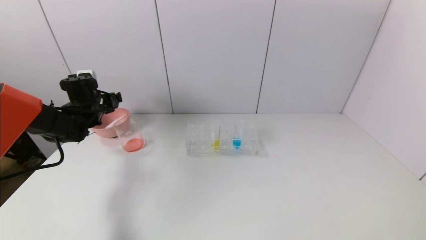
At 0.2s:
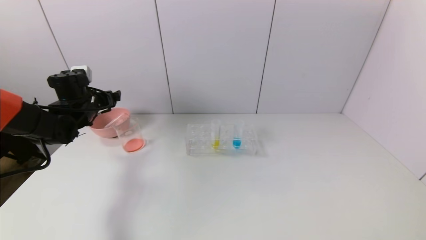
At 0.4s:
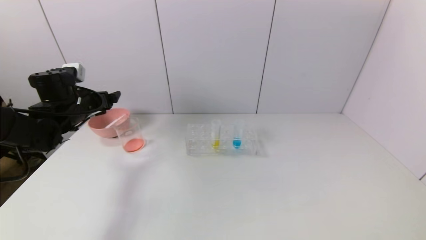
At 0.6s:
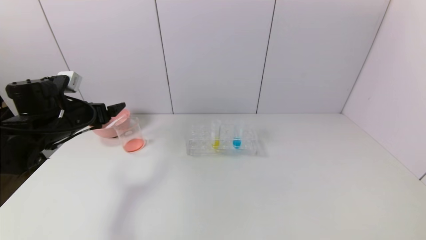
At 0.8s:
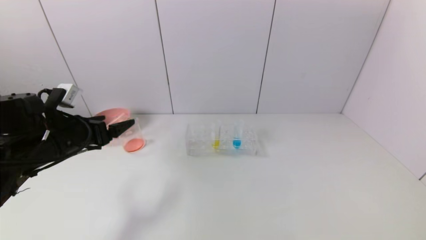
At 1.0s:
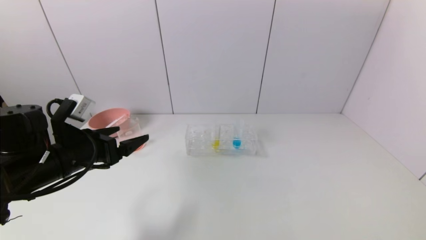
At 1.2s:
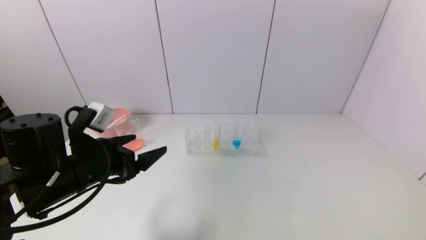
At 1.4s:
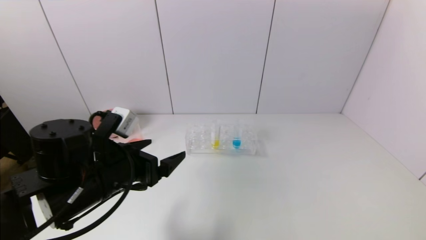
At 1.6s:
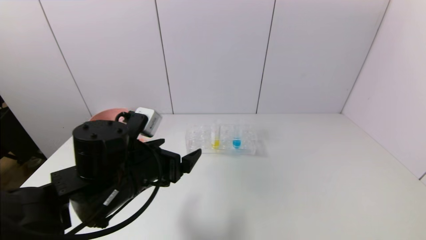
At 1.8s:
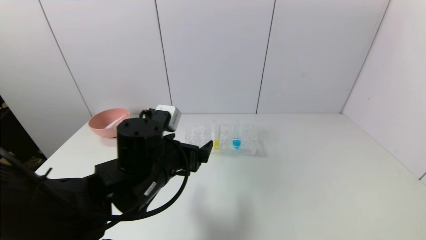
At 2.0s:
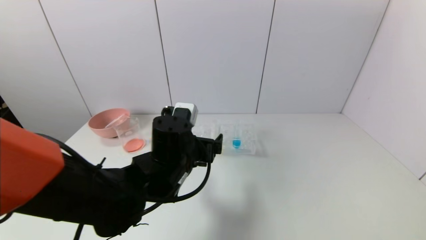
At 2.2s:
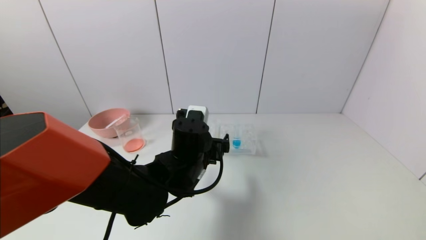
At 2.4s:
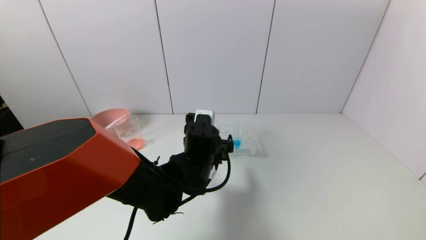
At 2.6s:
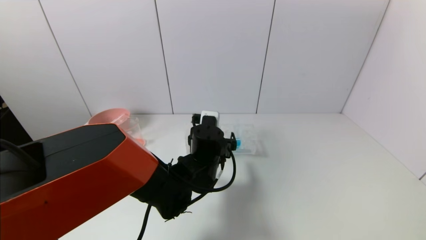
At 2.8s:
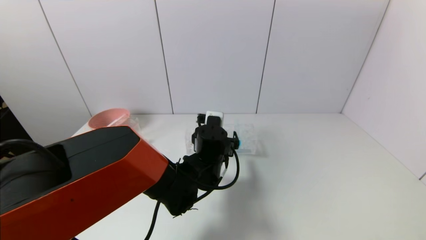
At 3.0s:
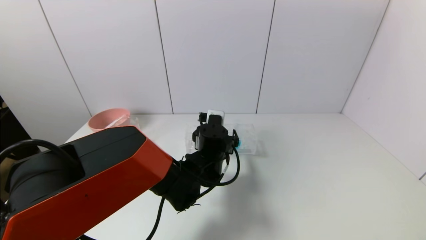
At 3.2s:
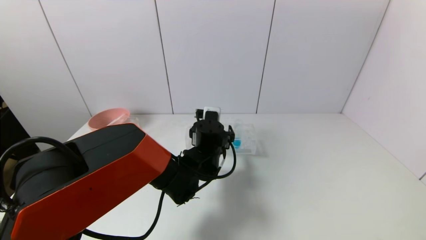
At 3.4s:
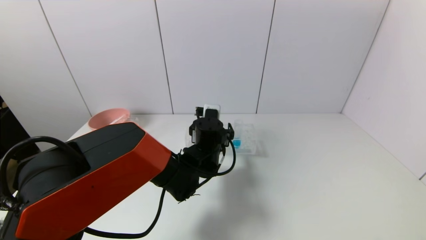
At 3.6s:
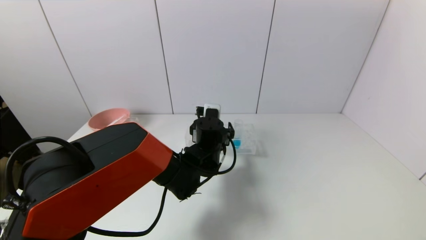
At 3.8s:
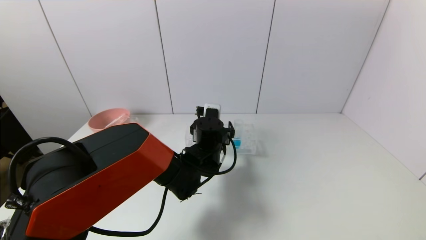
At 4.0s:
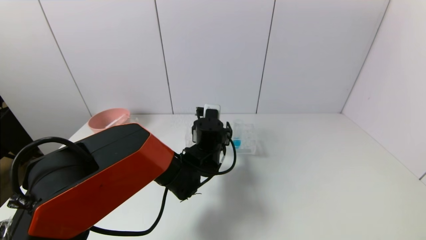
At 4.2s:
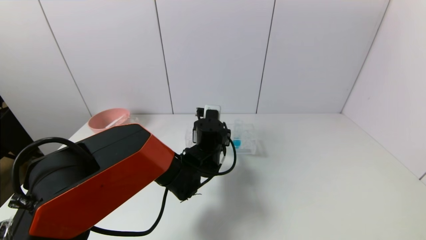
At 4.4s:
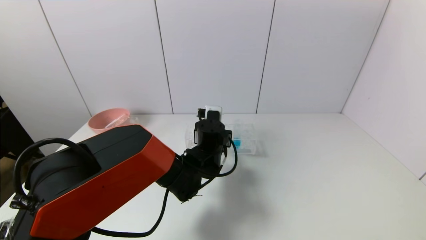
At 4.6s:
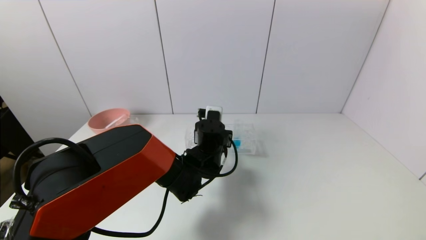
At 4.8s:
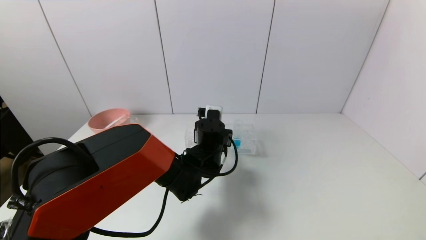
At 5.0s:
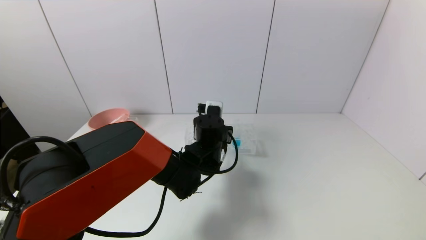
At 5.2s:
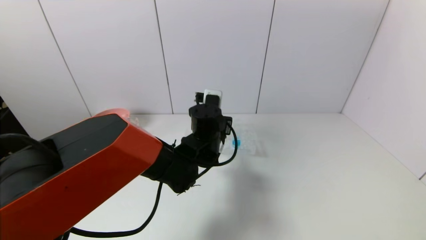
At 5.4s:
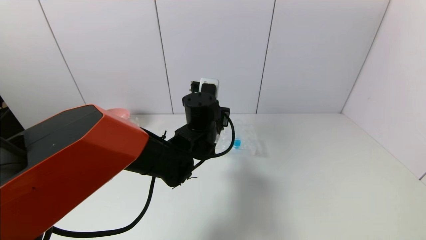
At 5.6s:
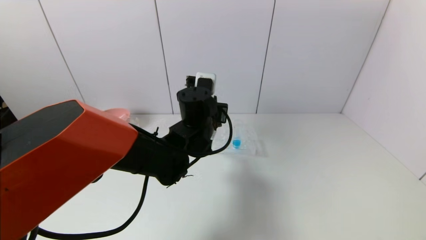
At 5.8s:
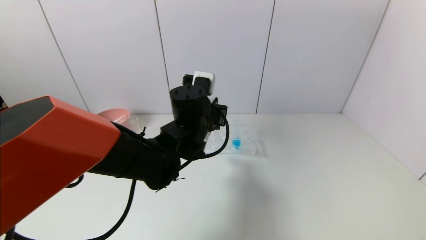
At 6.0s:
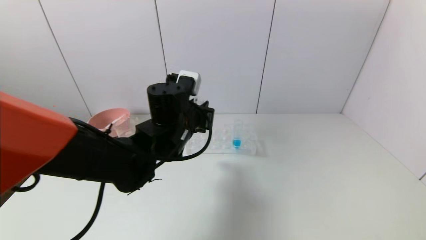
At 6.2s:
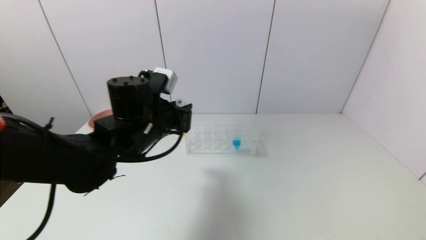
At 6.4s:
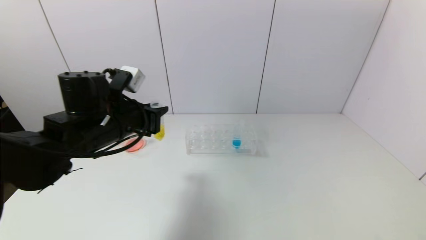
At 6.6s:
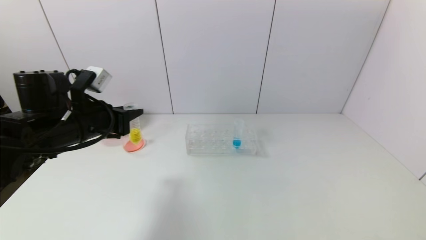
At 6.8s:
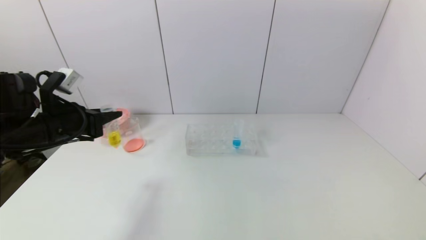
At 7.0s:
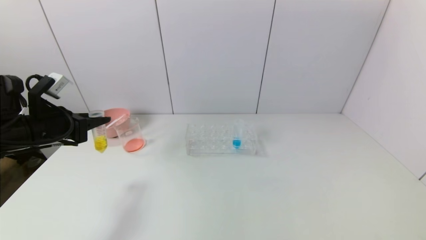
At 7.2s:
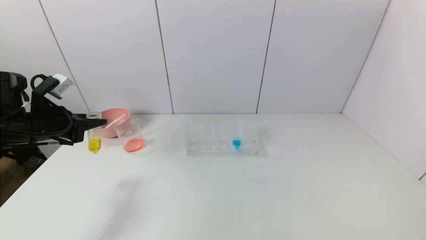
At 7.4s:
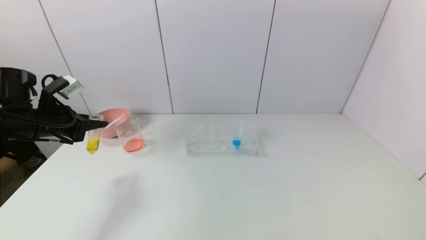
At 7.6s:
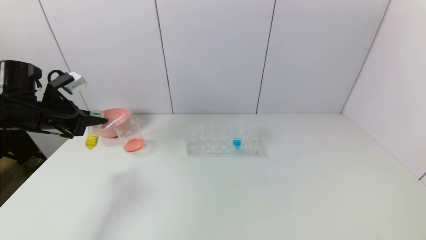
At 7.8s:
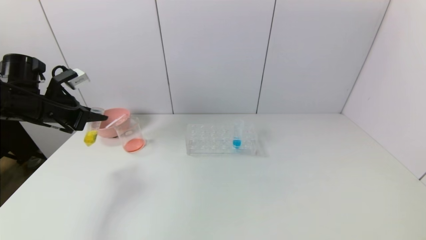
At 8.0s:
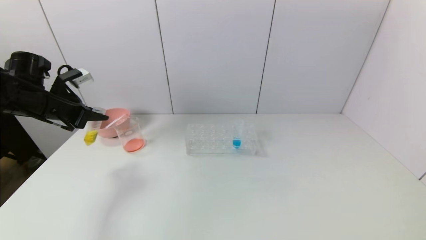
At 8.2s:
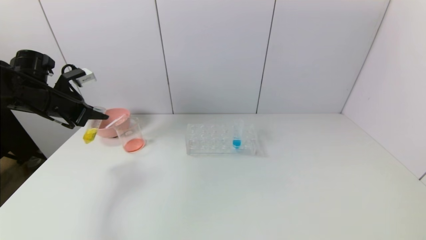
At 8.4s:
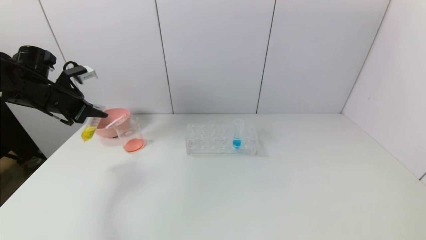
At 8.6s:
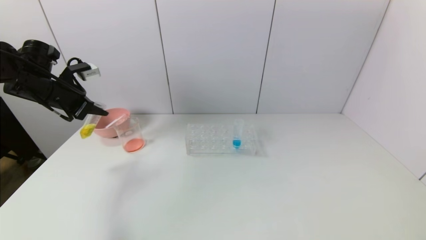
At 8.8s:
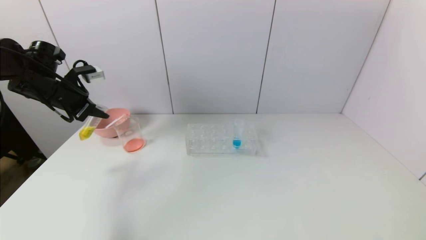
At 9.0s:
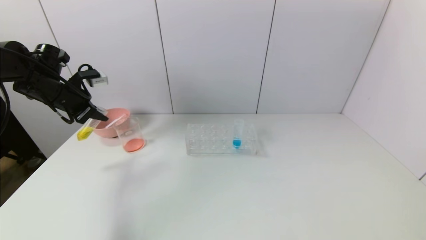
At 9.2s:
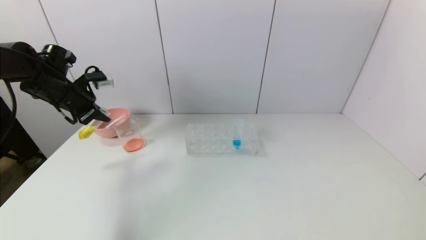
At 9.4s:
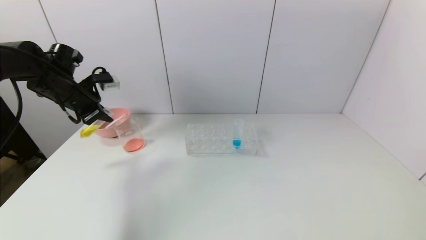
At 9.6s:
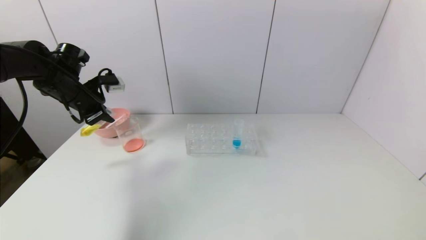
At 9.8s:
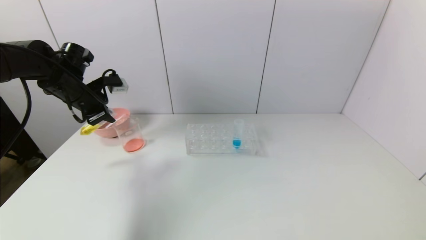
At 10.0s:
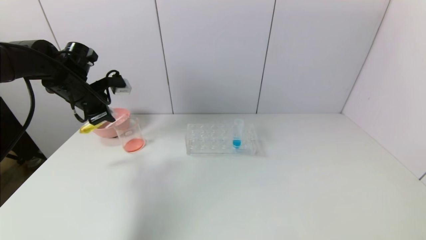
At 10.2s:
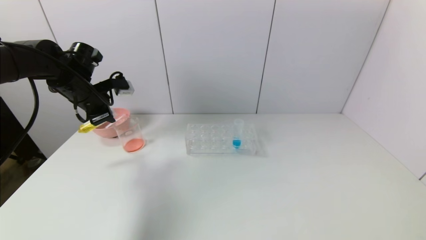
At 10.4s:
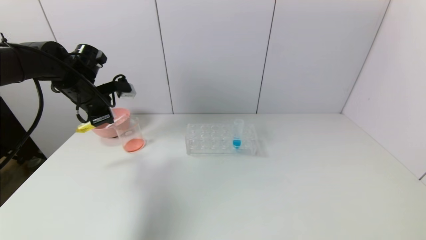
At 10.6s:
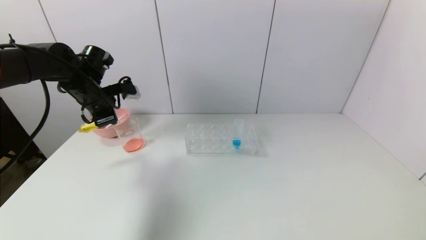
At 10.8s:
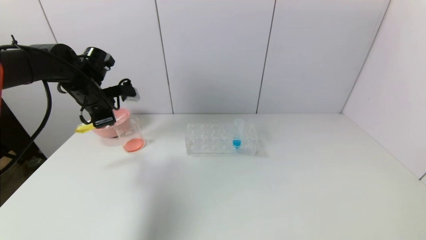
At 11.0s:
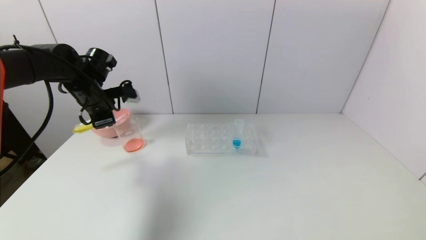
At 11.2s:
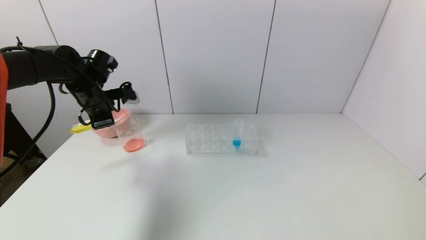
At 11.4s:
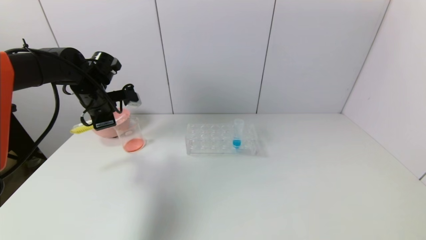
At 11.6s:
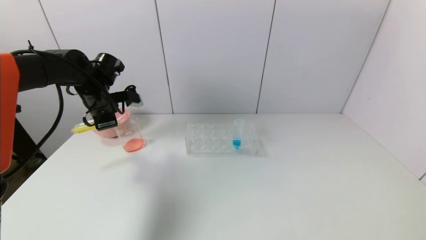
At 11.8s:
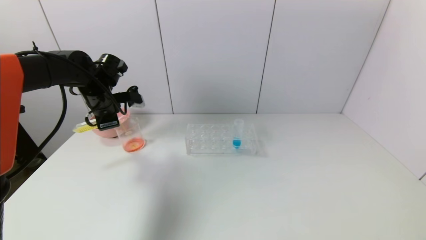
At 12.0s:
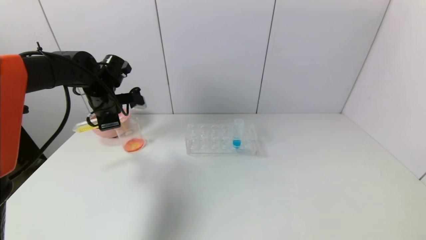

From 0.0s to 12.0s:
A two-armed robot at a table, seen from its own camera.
Task of the whole recording: pick up the test tube with yellow pigment and the test tube with red pigment by grippers and pour them into the beaker.
Step, from 0.0s to 4.4s: Grasp the yellow reagent with the left gripper.
From 0.0s to 1.6s: The left gripper travels backward and to the right by some 30 cm.
From 1.6s to 3.0s: The left gripper shifts about 20 cm to the right, forward and downward.
From 3.0s to 4.4s: The left gripper closes.
From 4.4s to 6.0s: The left gripper is displaced upward, to the left and backward by some 15 cm.
From 6.0s to 7.6s: The left gripper goes roughly 30 cm to the left.
From 7.6s to 9.0s: The left gripper heads forward, covering approximately 5 cm.
From 9.0s to 10.4s: The left gripper moves to the right, some 5 cm.
From 10.4s to 12.0s: The grippers stay close to where they were, moving slightly.

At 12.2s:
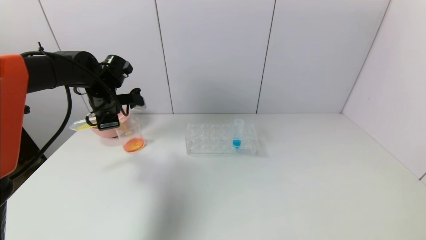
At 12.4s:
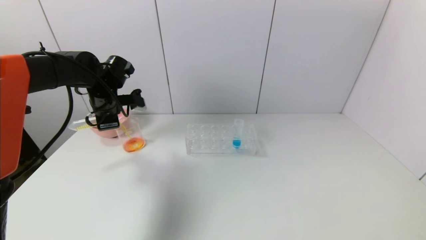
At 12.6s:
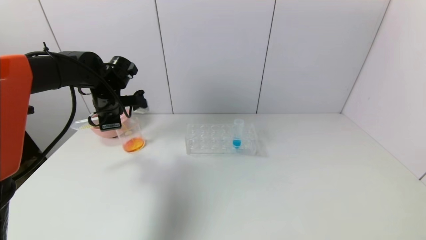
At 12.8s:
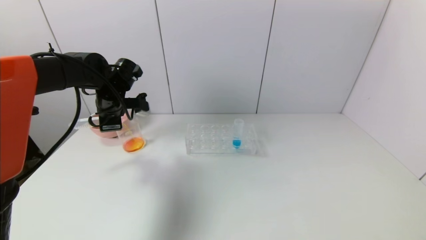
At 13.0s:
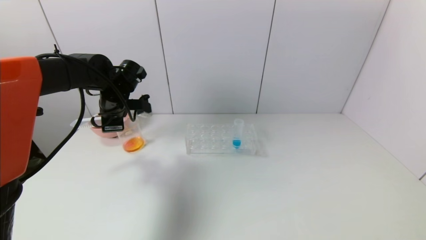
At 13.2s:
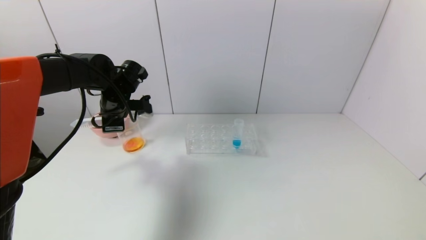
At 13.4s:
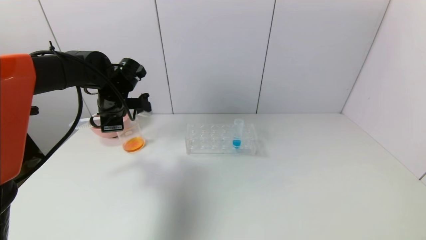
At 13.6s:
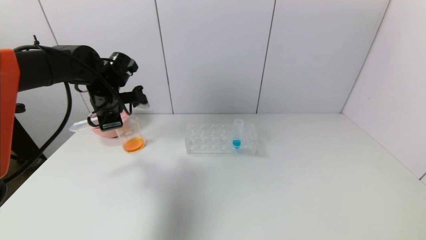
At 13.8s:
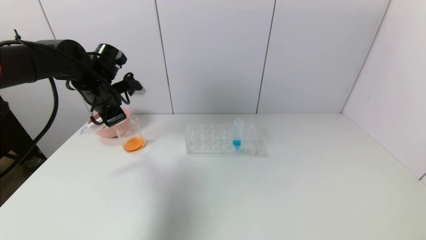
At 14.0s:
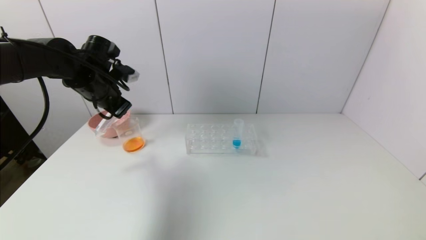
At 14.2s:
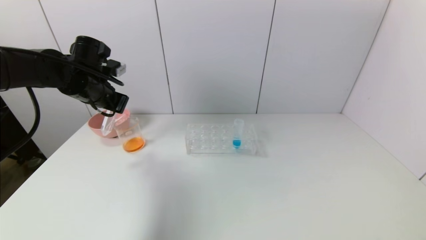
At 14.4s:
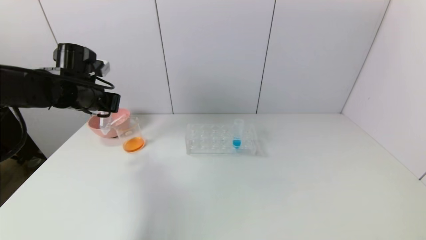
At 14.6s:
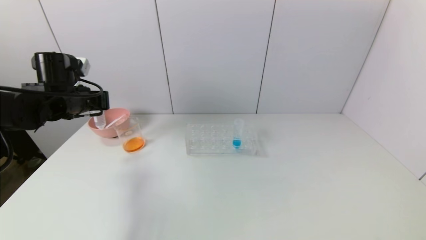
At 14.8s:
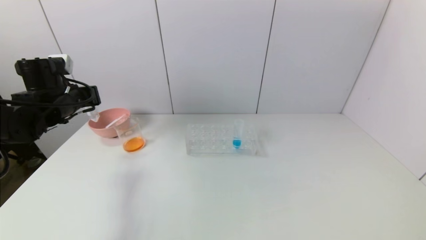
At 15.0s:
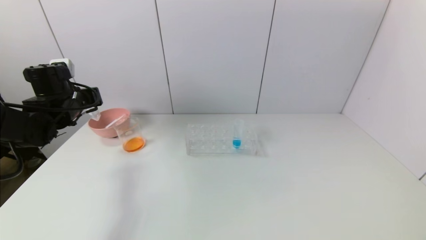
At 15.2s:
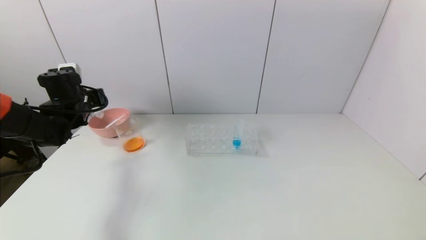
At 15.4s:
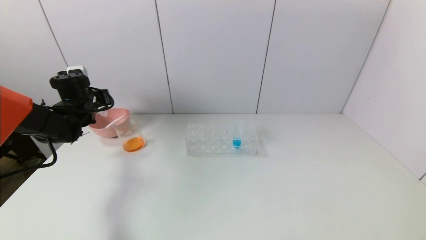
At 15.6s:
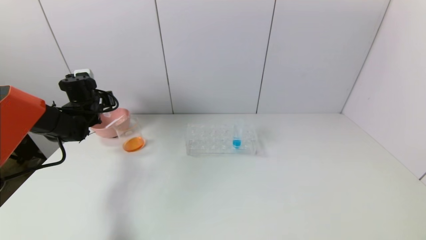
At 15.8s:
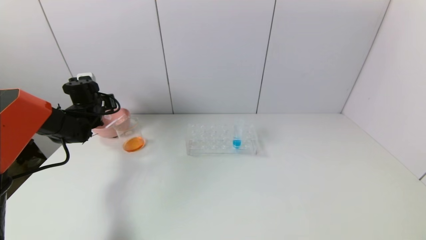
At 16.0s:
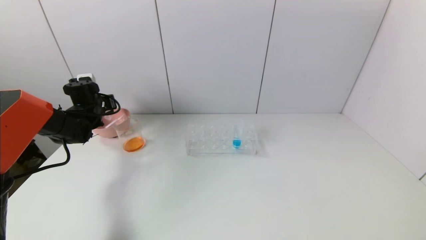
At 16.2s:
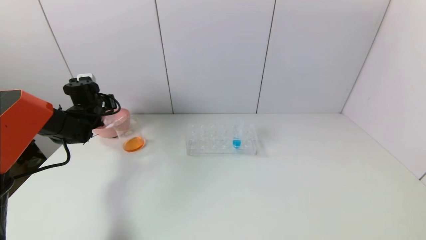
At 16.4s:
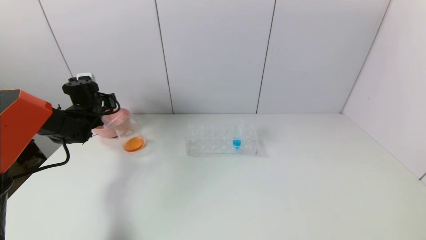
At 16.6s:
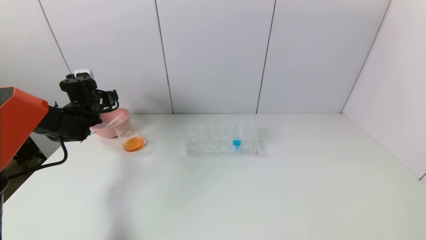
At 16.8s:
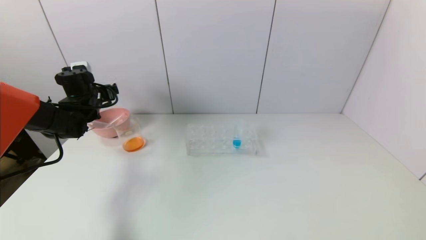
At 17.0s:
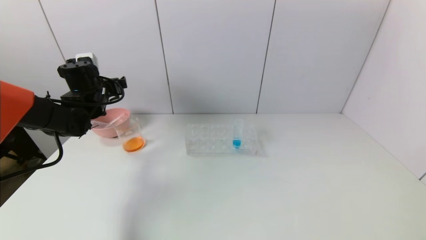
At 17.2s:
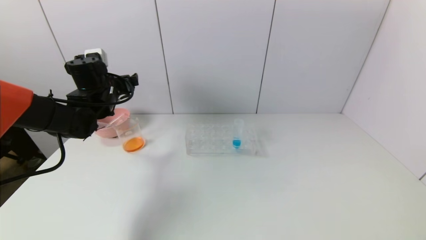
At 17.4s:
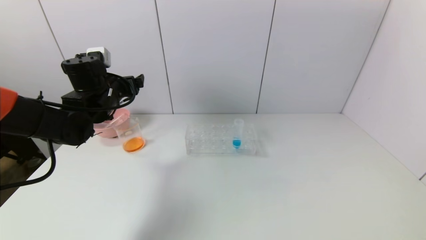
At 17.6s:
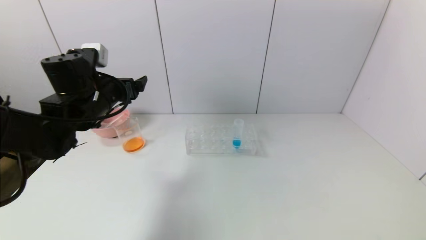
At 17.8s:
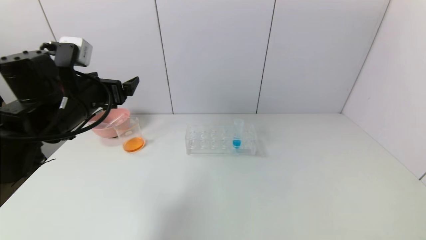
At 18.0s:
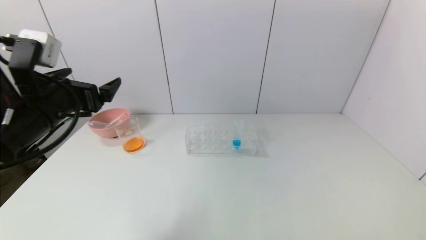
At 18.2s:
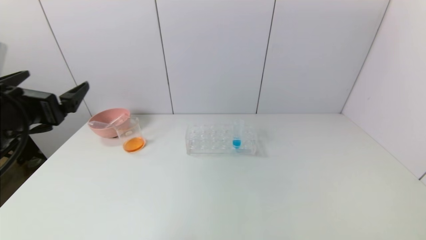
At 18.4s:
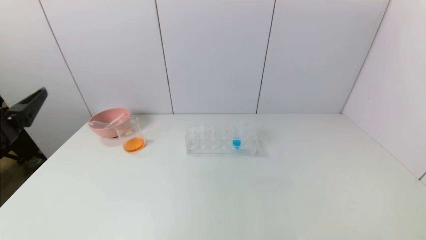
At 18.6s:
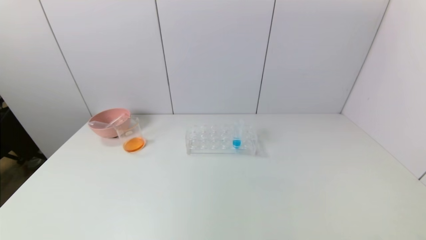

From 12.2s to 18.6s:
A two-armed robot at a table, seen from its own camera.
Task of the whole recording: pick up the test tube with yellow pigment and the test tube with red pigment by grippers and pour them into the beaker.
Step, from 13.4s to 16.4s: Place the test tube into the pink bowl with the left gripper.
From 13.8s to 15.4s: The left gripper is displaced to the left and downward by about 10 cm.
From 15.4s to 17.0s: The left gripper ends up about 5 cm from where it was, and opens up.
From 17.0s to 18.6s: The left gripper is displaced backward by roughly 35 cm.
